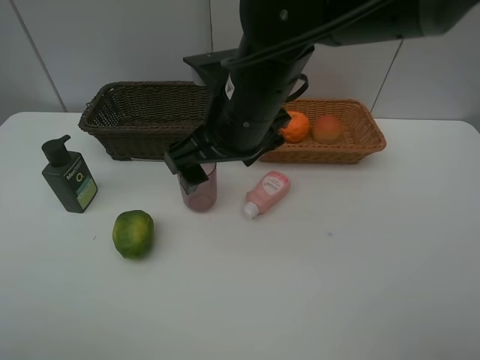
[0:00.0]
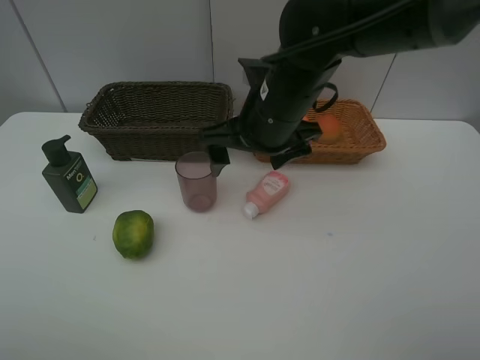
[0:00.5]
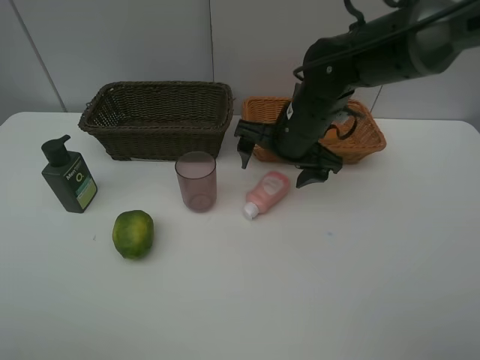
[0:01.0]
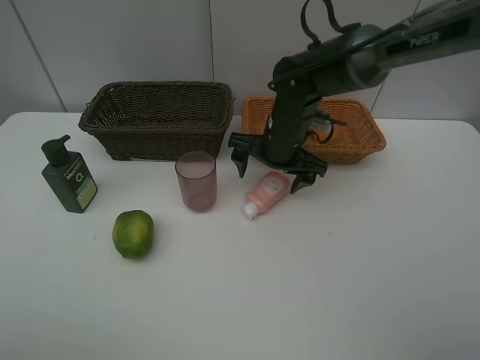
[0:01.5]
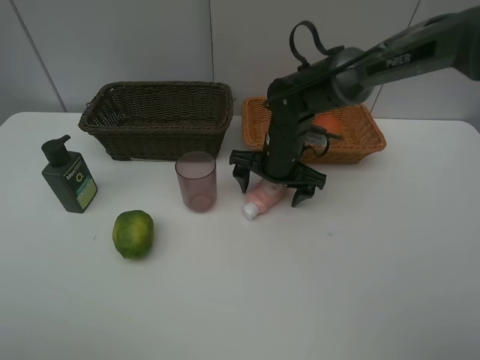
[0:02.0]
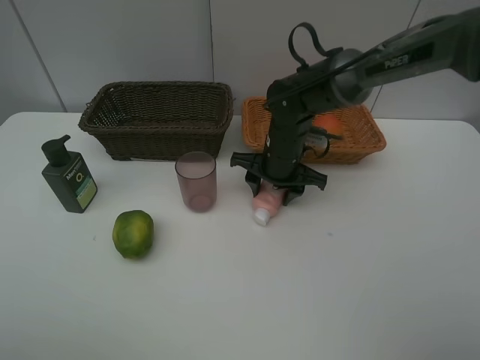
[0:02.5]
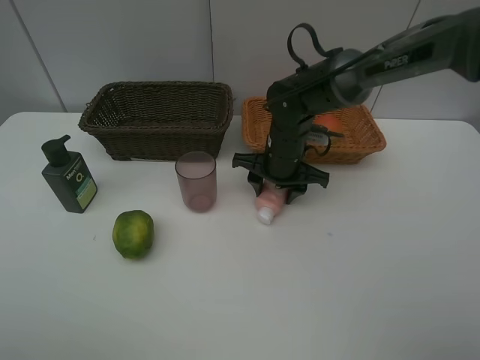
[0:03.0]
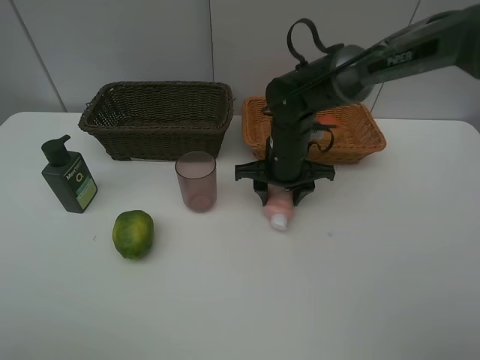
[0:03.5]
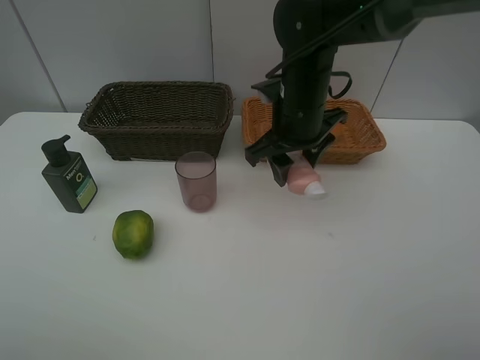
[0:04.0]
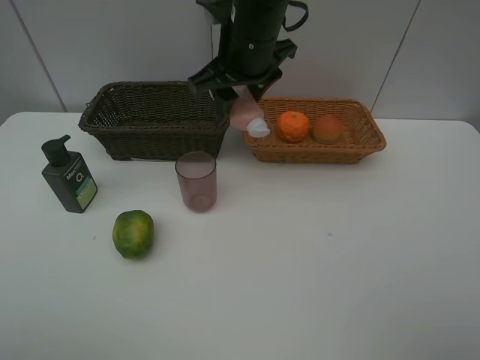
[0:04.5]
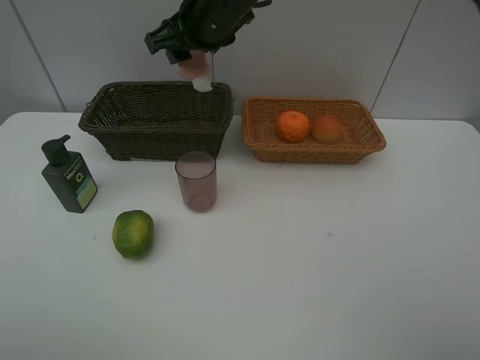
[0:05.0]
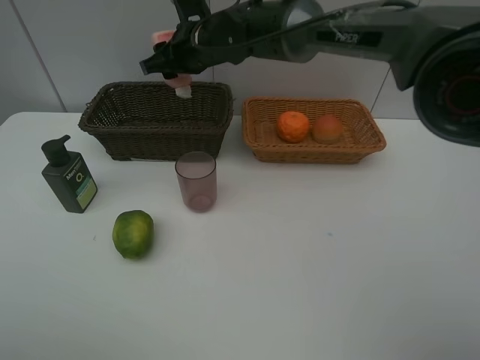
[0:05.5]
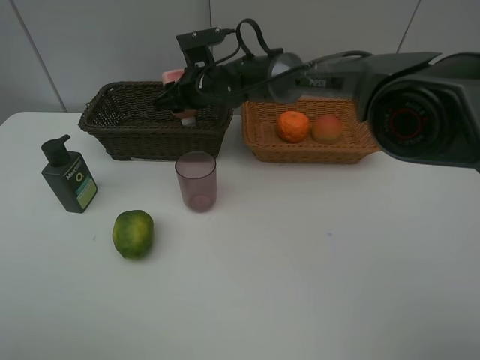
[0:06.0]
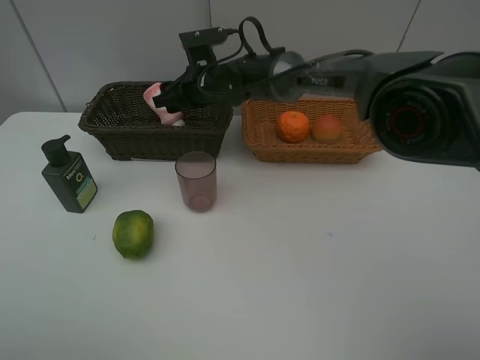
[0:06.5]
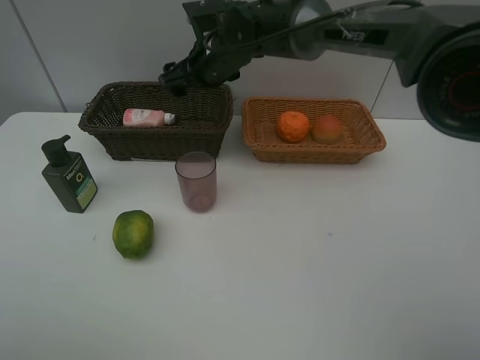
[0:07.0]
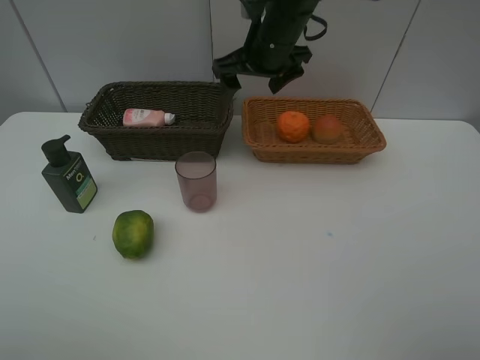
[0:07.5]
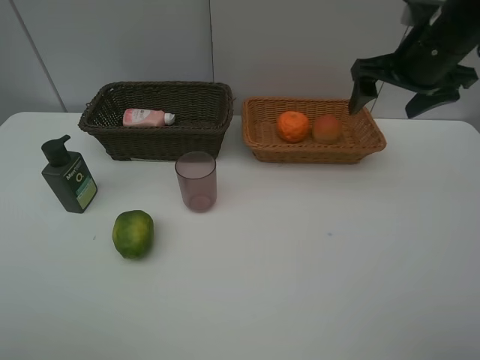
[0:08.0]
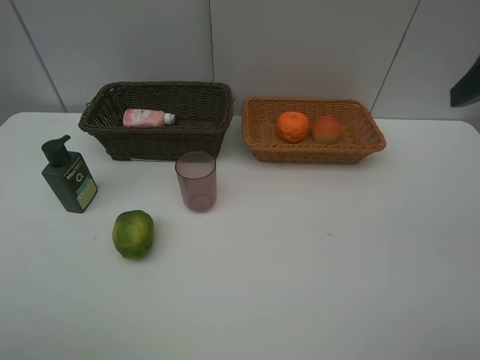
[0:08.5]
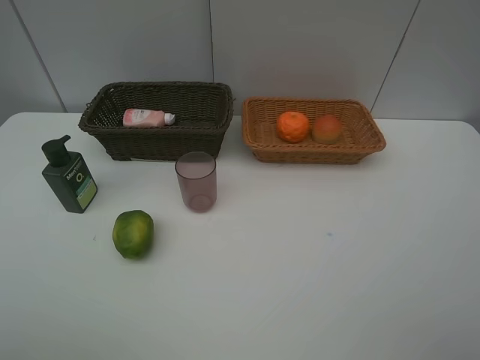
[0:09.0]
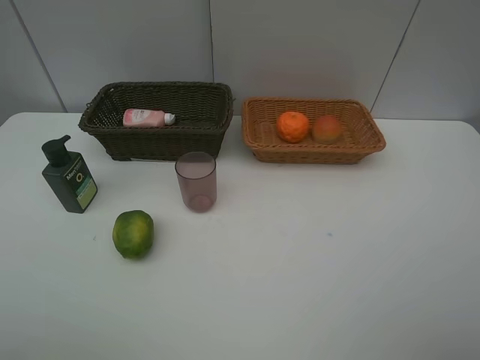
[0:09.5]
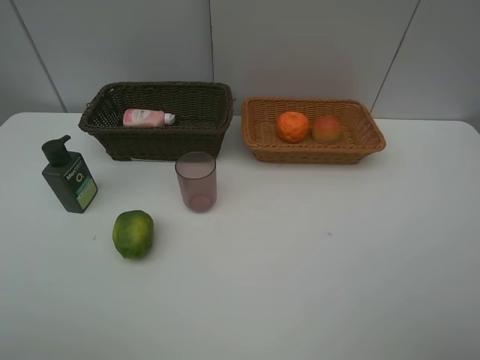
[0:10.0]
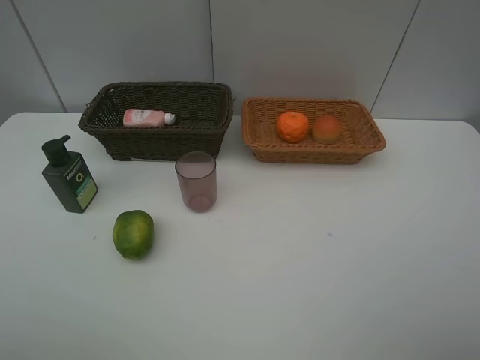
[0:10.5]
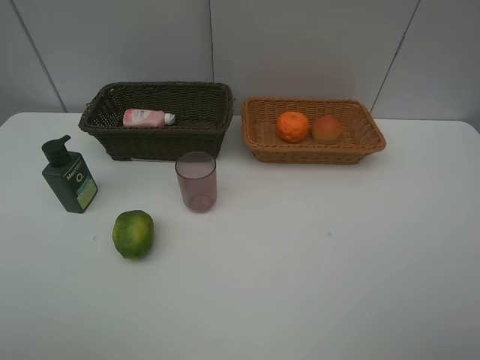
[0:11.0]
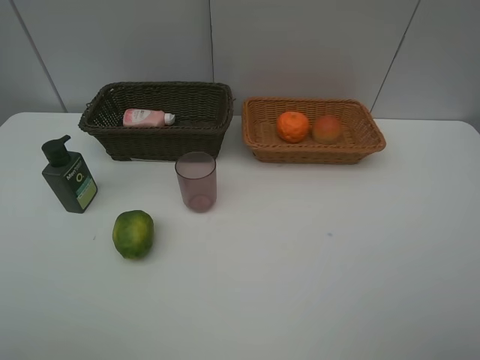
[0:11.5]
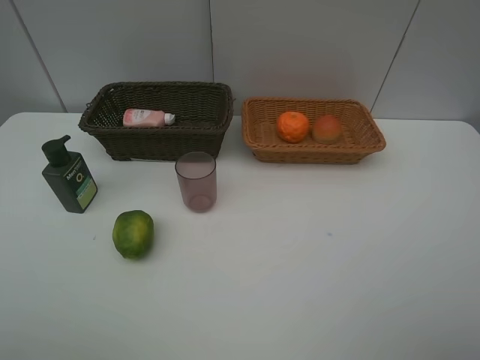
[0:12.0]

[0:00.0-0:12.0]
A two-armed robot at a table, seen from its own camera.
Task of the whole recording: place multiple objects separately in different baskets.
0.0 to 2.0 s: The right gripper is displaced downward, forward and to the right by approximately 20 cm.
2.0 to 4.0 s: The right gripper moves upward, roughly 10 cm, and closes.
4.0 to 6.0 s: The right gripper goes about 20 cm to the left, forward and downward.
6.0 to 8.0 s: The right gripper goes about 35 cm to the right, upward and backward, and opens.
8.0 to 10.0 s: The right gripper shifts about 35 cm backward.

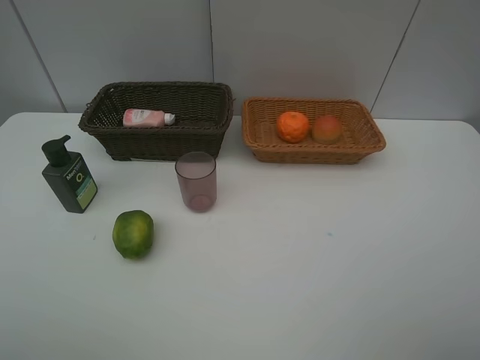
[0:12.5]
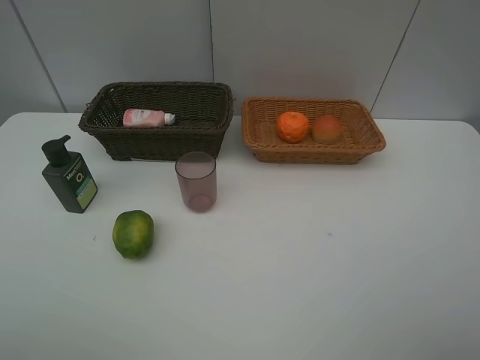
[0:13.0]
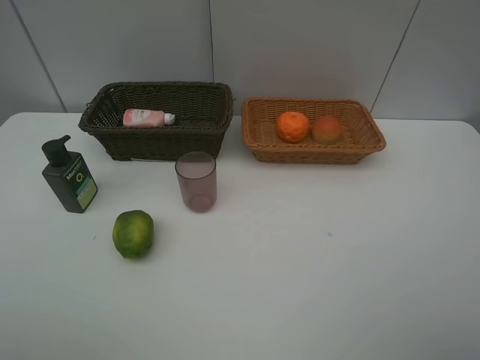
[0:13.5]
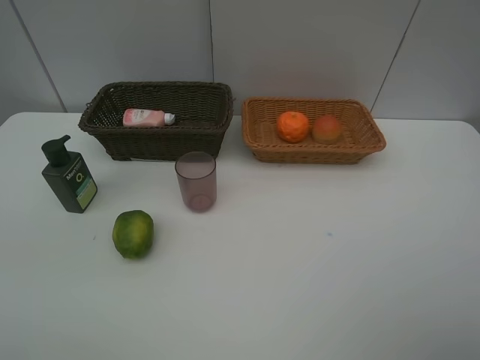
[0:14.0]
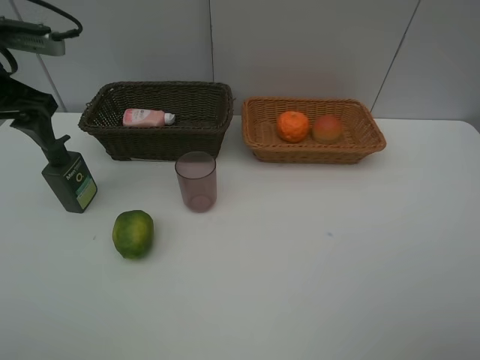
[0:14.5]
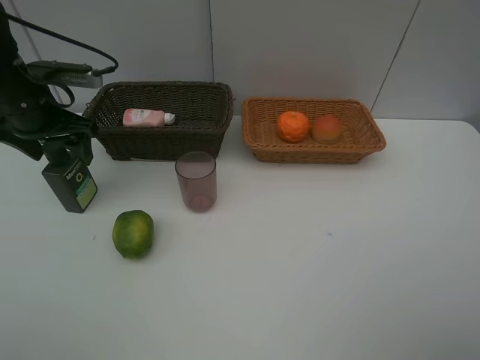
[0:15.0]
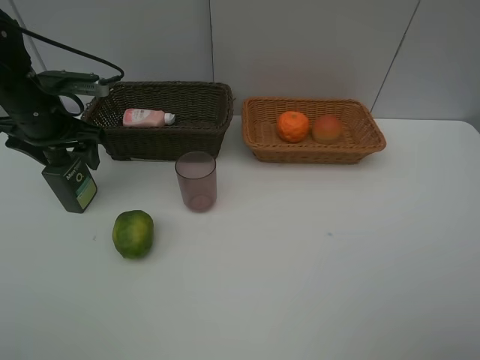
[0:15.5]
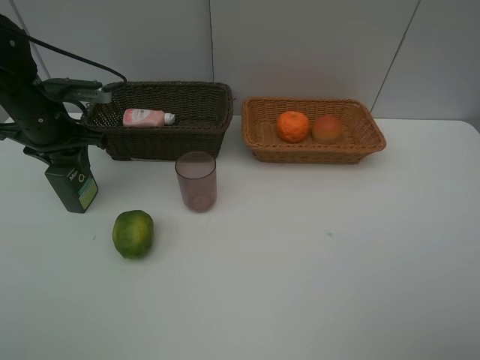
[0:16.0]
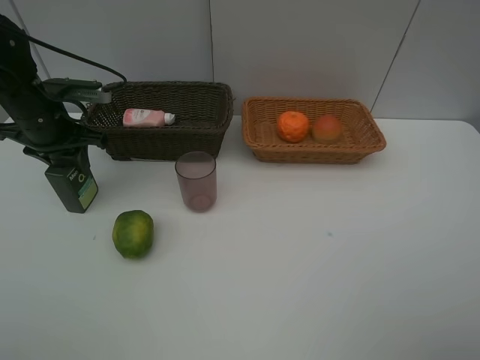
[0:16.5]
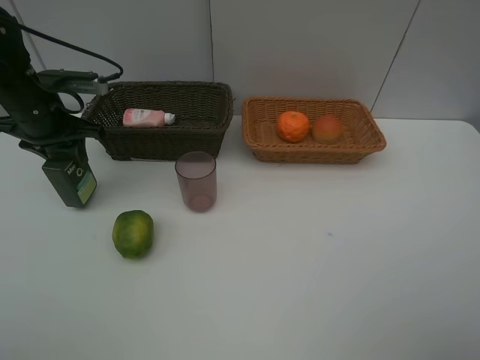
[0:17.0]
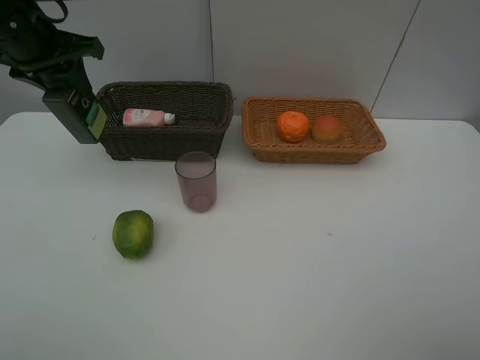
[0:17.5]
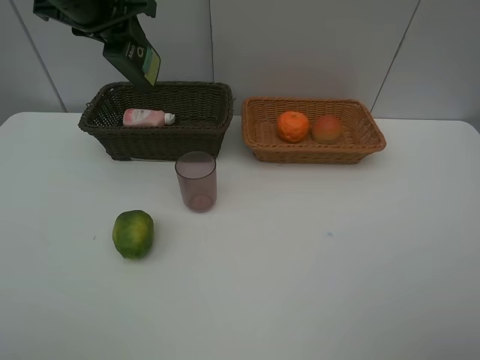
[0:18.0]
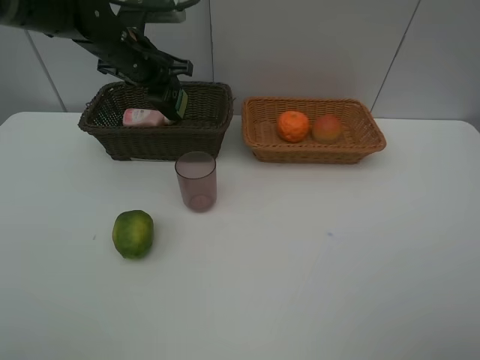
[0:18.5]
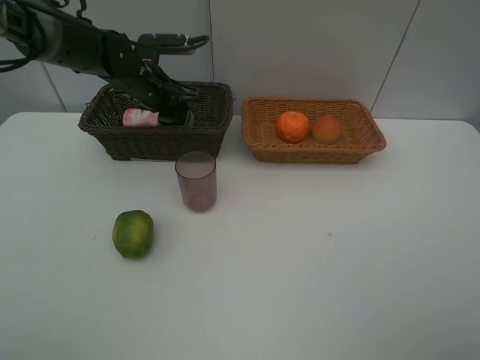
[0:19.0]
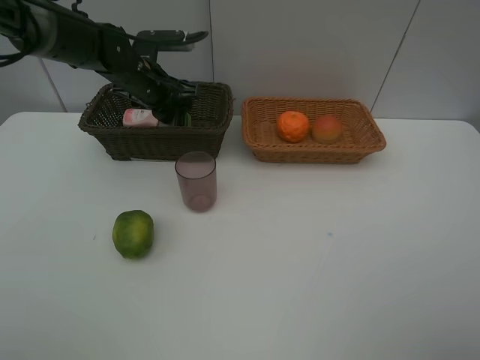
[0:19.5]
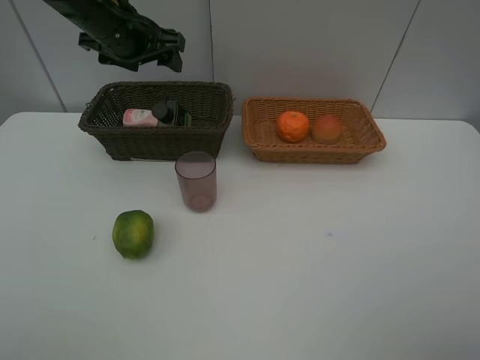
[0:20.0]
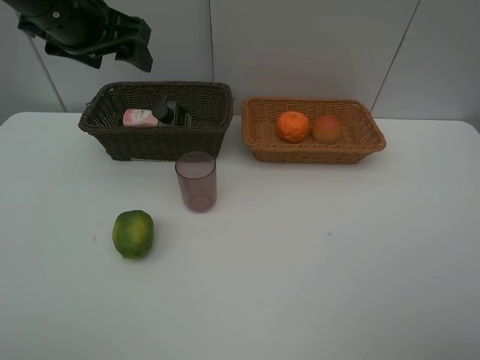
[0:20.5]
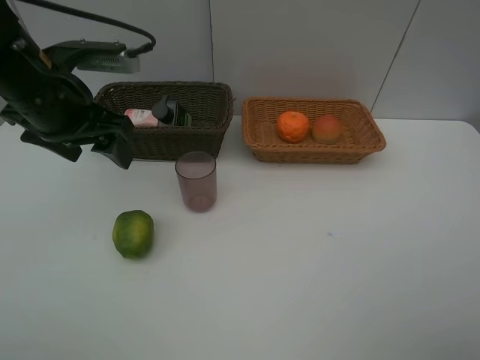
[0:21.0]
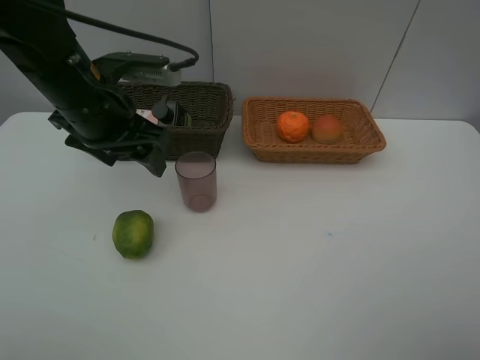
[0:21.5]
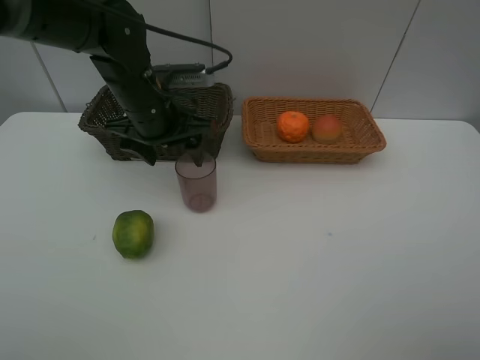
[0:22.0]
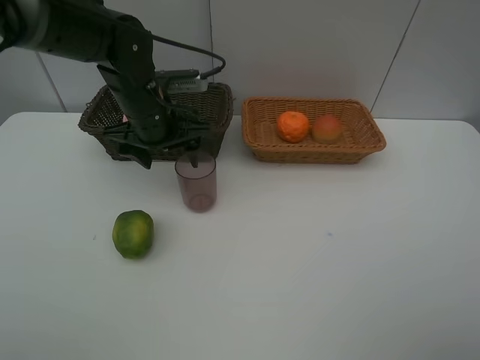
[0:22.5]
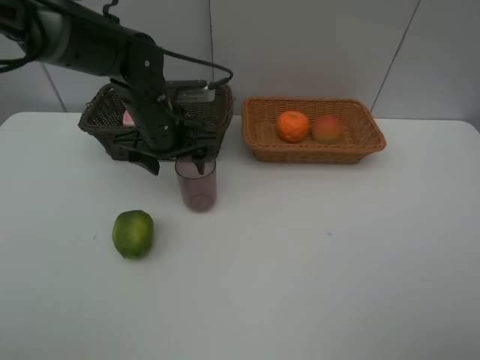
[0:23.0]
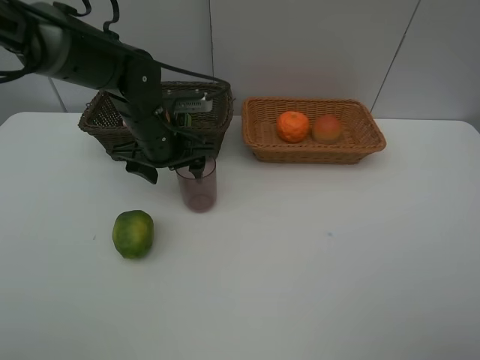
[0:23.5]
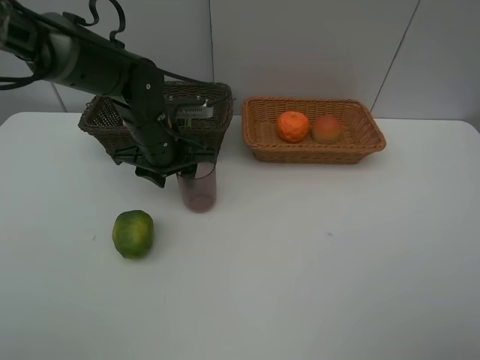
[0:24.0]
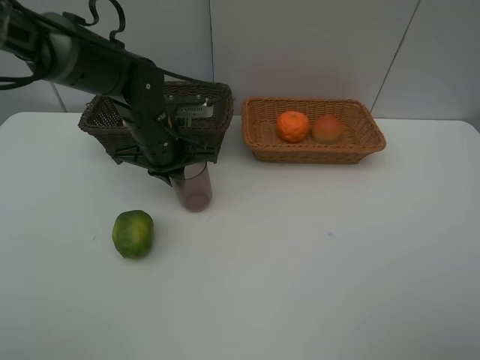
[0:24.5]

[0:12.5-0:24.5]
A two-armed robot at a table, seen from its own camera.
Task of the whole recording: place multiple objects separately in different baskets.
12.5 to 14.5 s: The left gripper heads forward, covering about 30 cm.
14.5 to 16.5 s: The left gripper is displaced downward by about 10 cm, and closes.
16.5 to 18.5 s: The left gripper goes approximately 15 cm to the right and forward, and moves approximately 15 cm upward and comes back.
18.5 to 20.5 s: The left gripper moves backward and upward, some 15 cm, and opens up.
20.5 to 22.5 s: The left gripper goes about 15 cm downward and to the right.
22.5 to 24.5 s: The left gripper closes up.

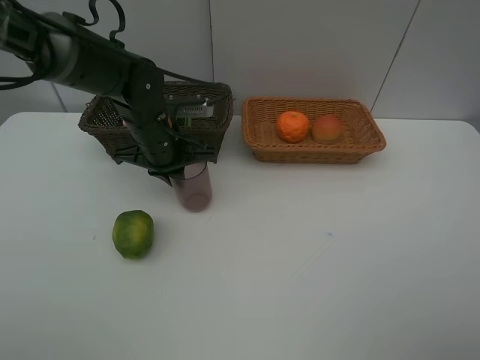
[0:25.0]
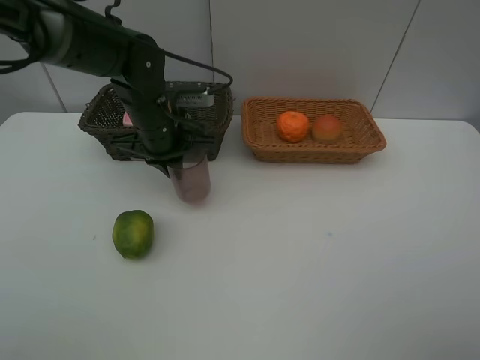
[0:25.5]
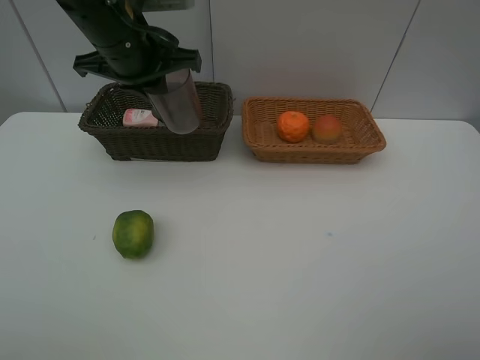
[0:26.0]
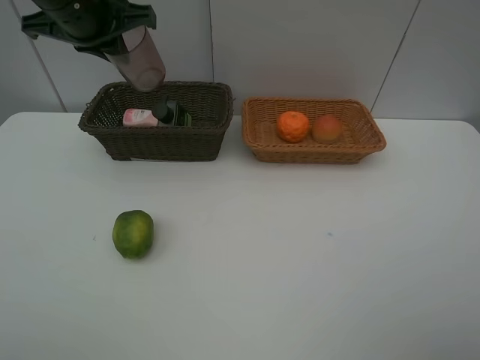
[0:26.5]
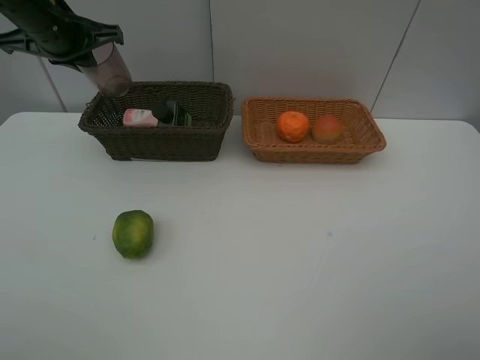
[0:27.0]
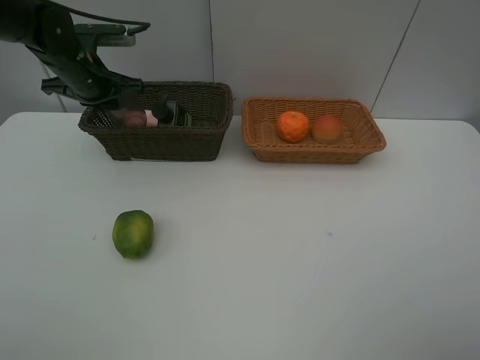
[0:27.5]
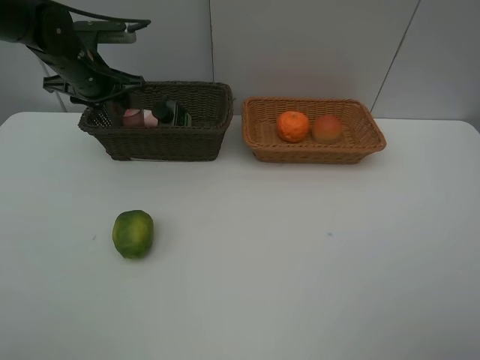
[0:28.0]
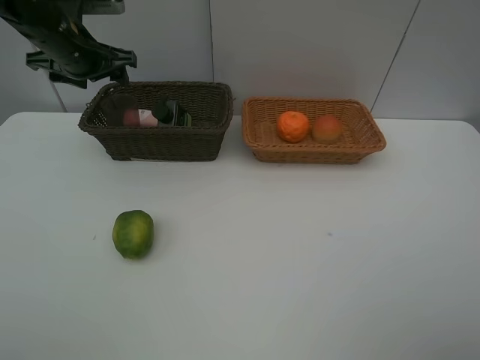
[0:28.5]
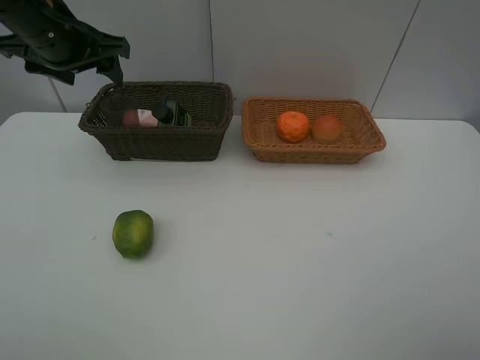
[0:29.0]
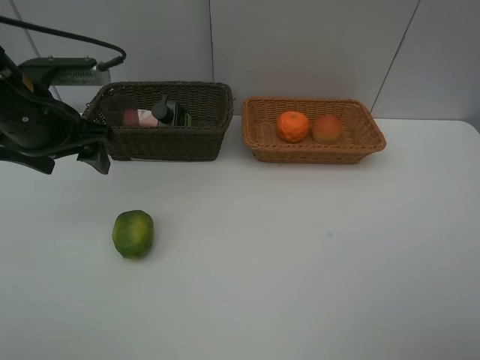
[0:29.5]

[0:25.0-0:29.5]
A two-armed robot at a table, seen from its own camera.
Task of the whole recording: place multiple objects separately in different baskets.
25.0 to 27.0 s: The left gripper moves to the left, upward and forward, some 20 cm.
27.0 to 29.5 s: The left gripper moves backward, some 15 cm, and opens its fingers.
